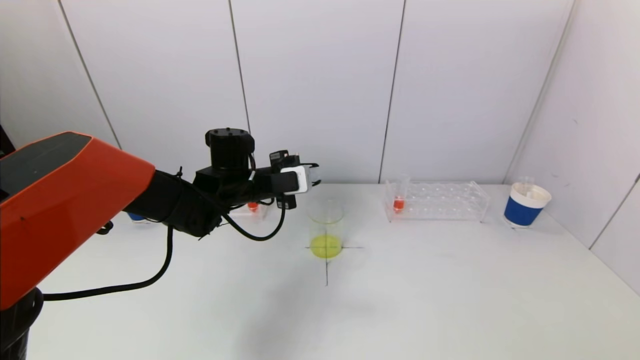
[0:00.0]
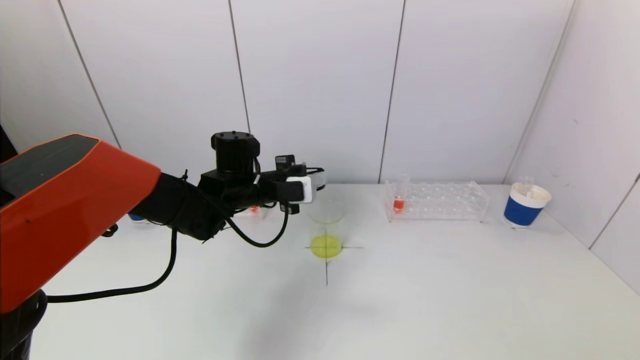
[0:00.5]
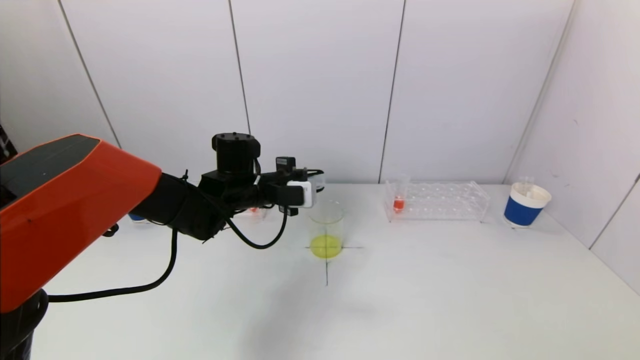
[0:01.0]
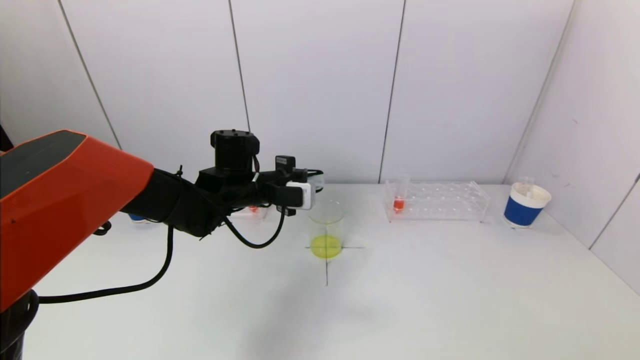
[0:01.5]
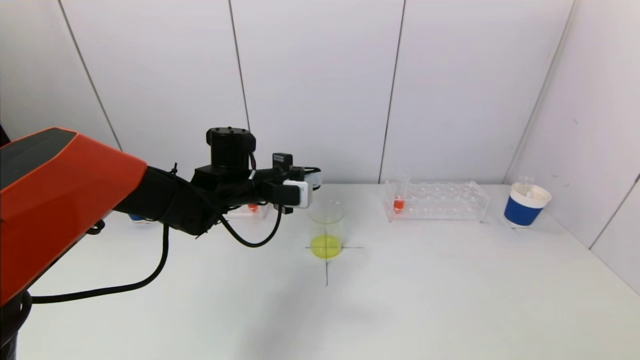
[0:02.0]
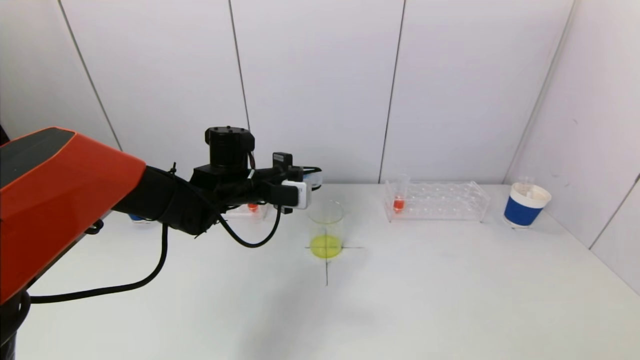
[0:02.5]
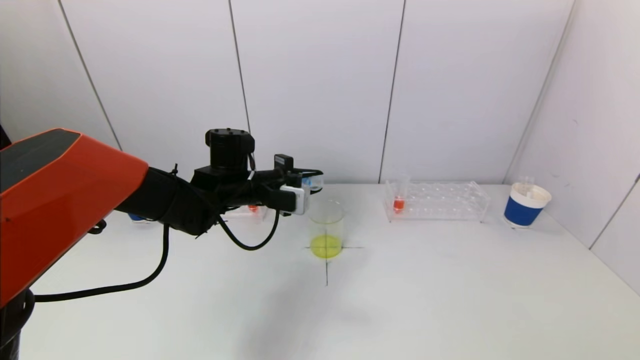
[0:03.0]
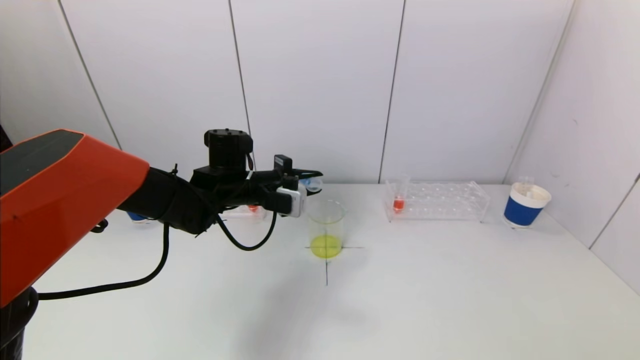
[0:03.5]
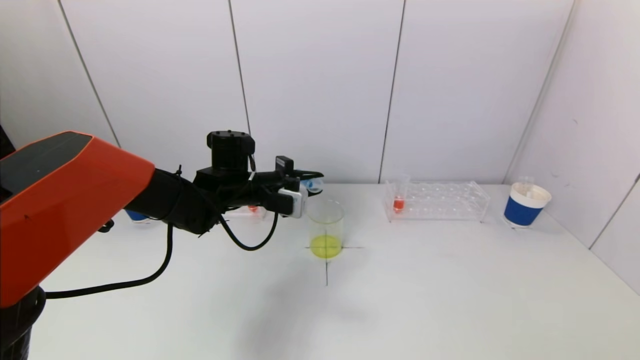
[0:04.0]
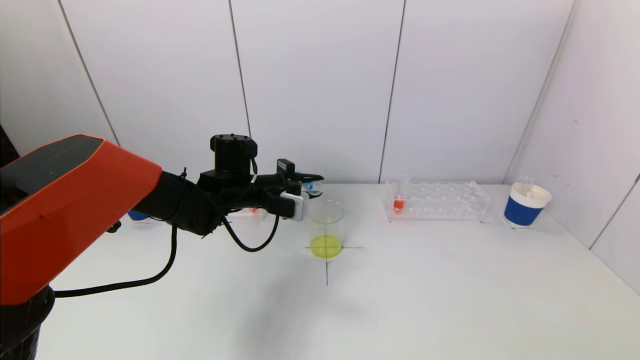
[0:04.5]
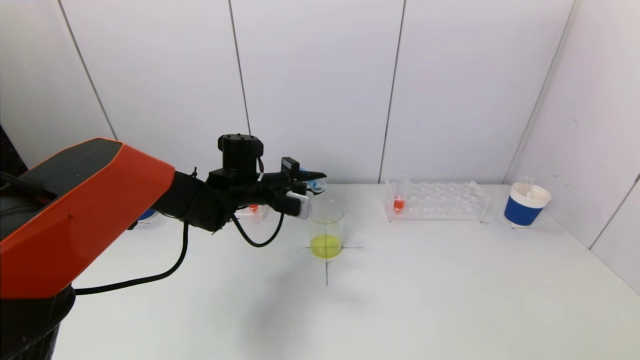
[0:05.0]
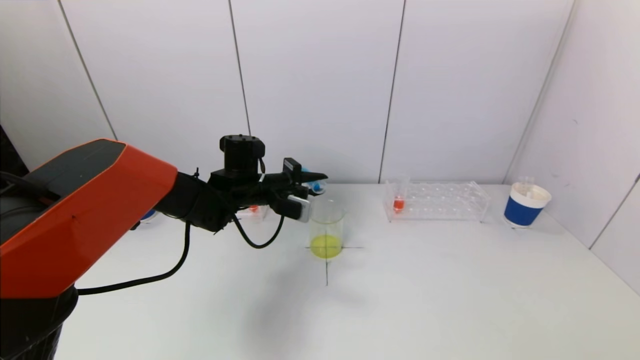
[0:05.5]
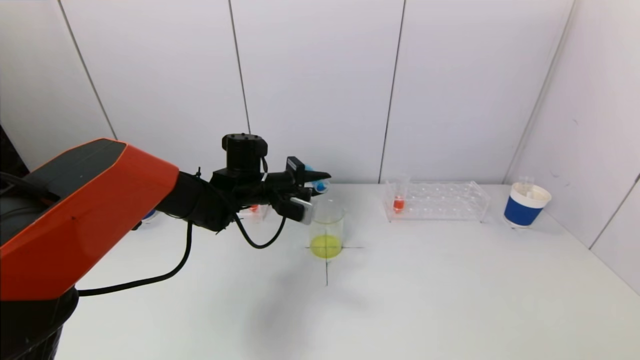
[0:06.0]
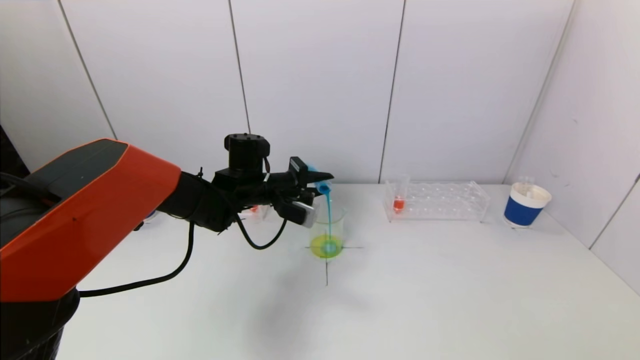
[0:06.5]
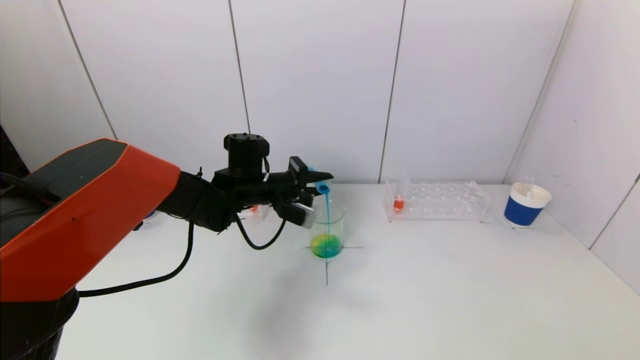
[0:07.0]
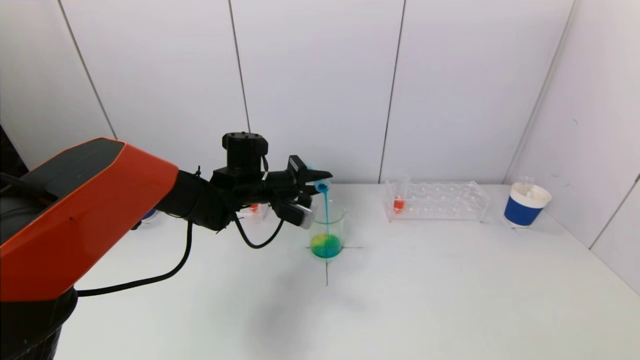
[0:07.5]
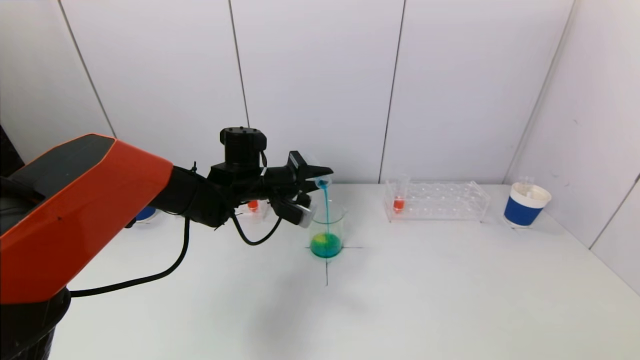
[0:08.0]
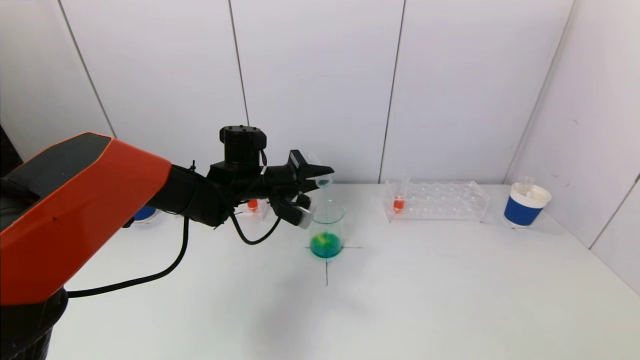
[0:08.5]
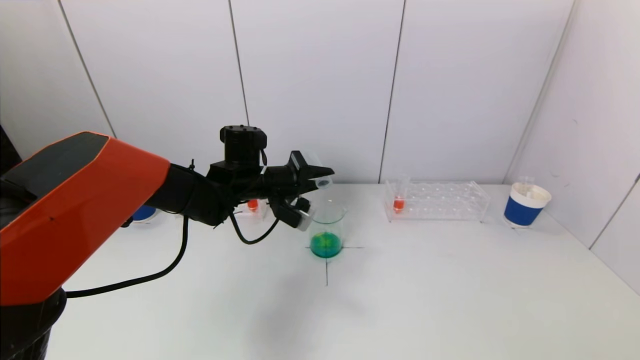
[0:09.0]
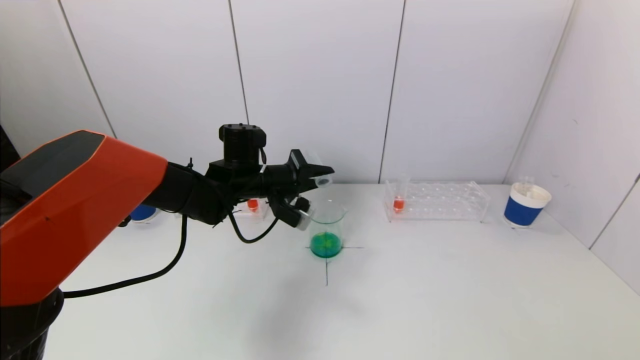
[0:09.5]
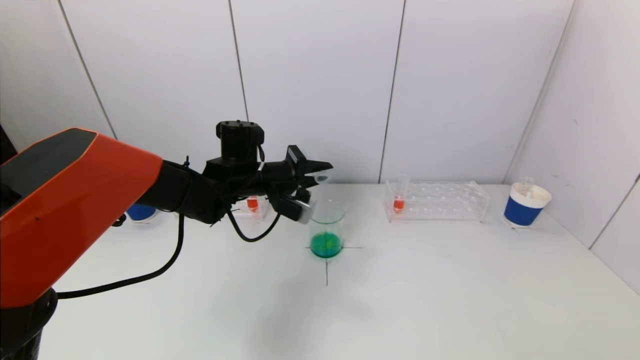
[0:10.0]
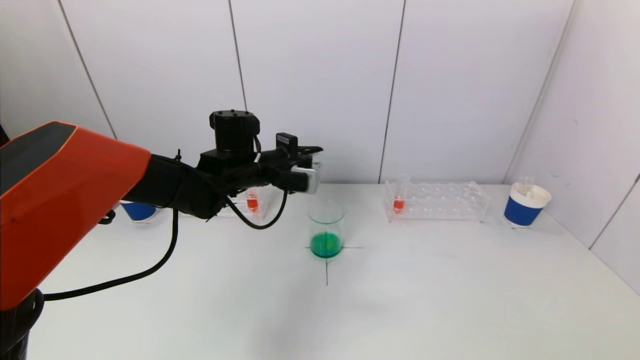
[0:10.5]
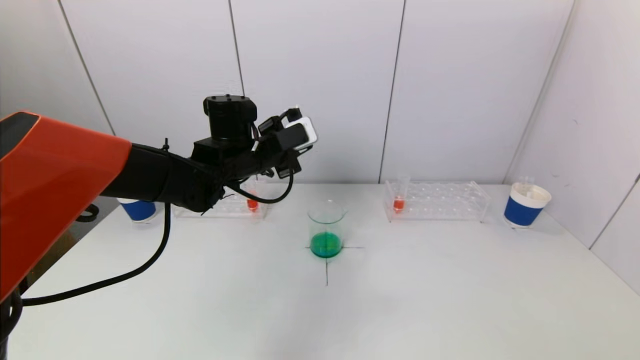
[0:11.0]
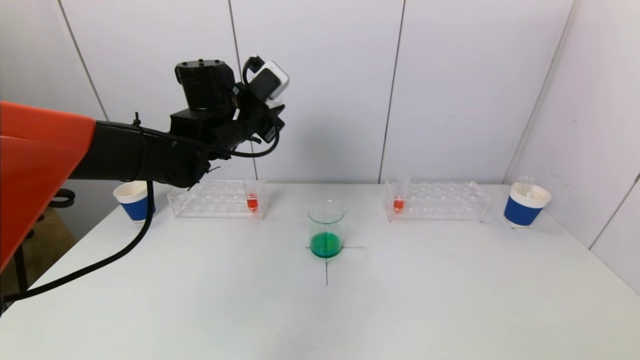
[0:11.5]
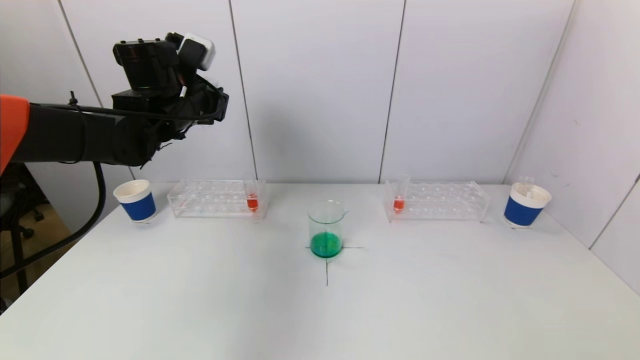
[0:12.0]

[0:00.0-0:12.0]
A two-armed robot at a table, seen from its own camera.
Task of the whole recording: pick up a test tube with pigment on left test tube rack and a test tube with pigment on right test tube rack by grippers and pour them into the beaker.
Step, 0:00.0 to 0:09.5: Pour the blue reagent into the graduated cylinder with the left gripper.
0:00.0 to 0:04.0: The grippers make only small movements.
0:04.0 to 0:06.0: The grippers stay close to where they were, moving slightly.
0:06.0 to 0:10.0: The grippers make only small movements.
0:10.0 to 0:12.0: The left gripper shifts about 15 cm upward and to the left.

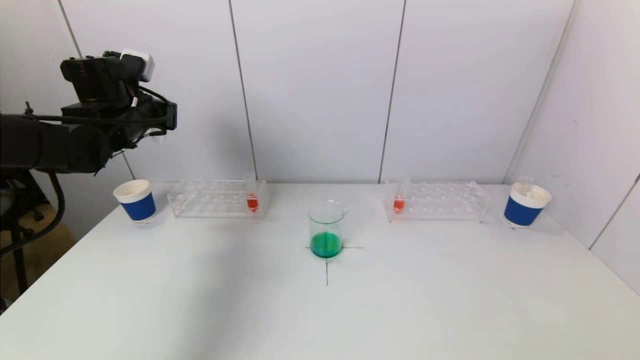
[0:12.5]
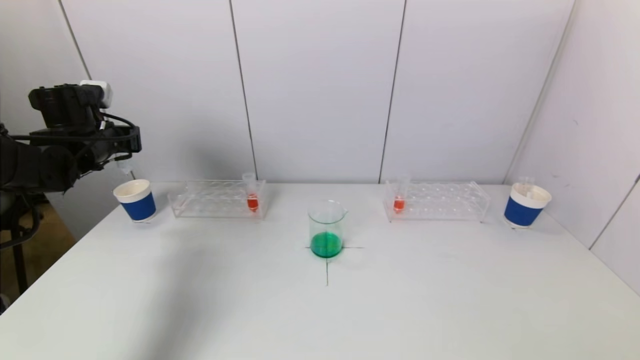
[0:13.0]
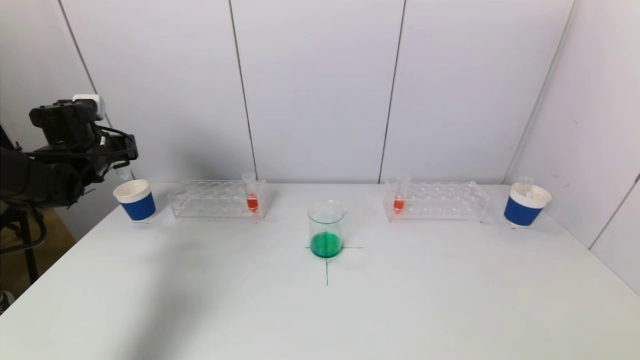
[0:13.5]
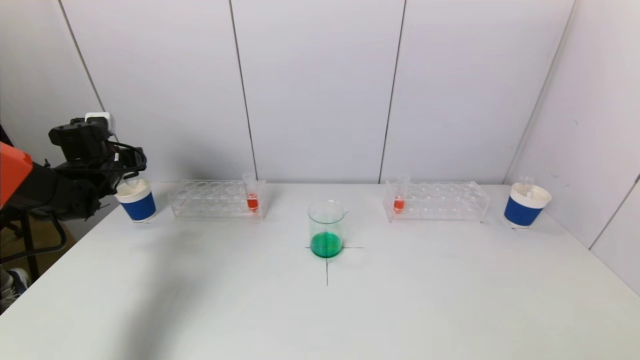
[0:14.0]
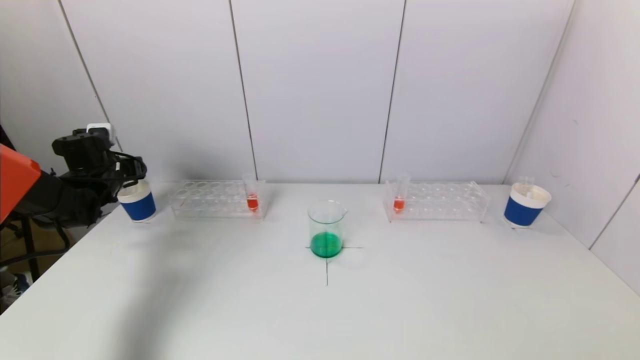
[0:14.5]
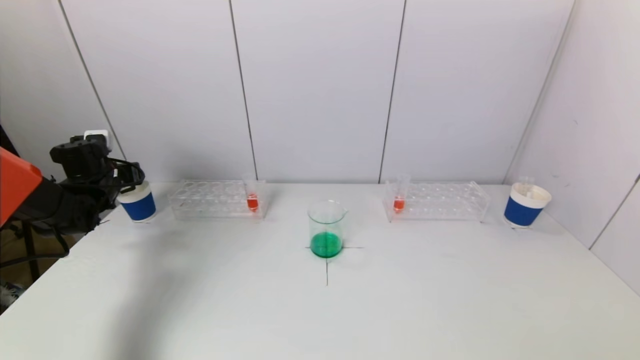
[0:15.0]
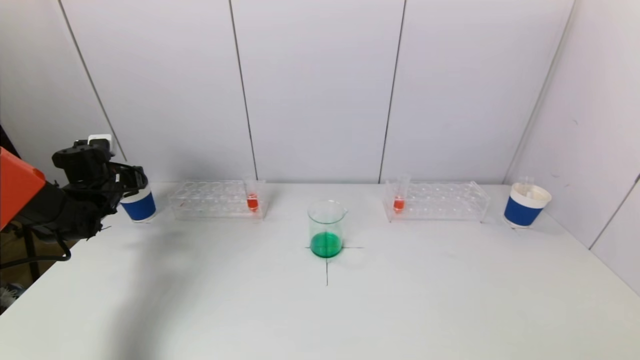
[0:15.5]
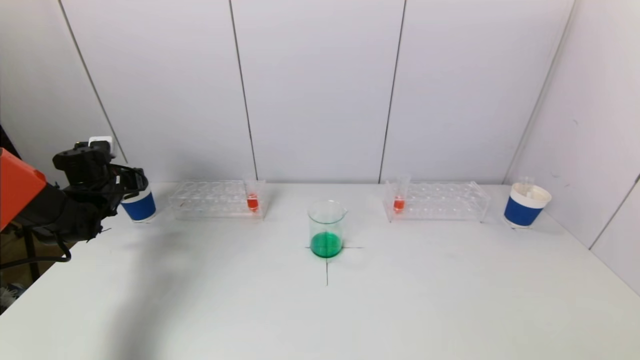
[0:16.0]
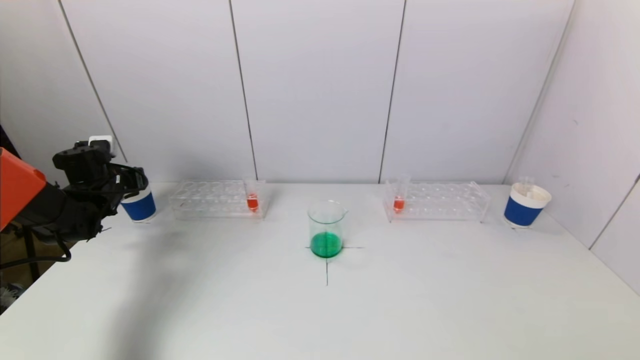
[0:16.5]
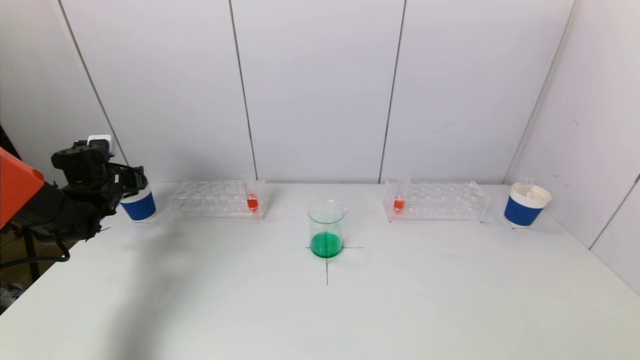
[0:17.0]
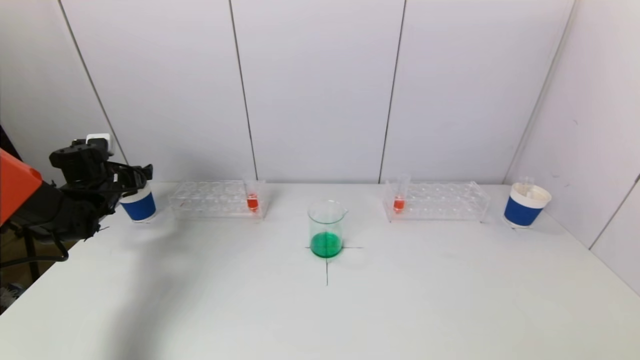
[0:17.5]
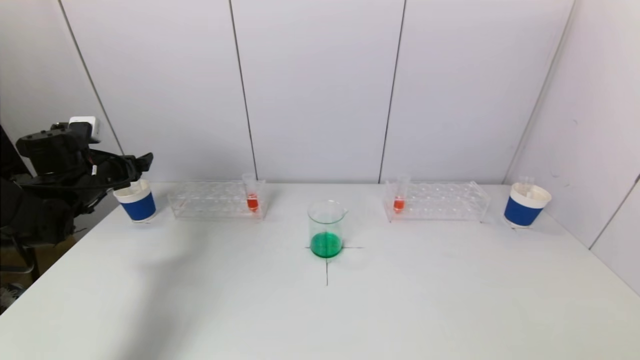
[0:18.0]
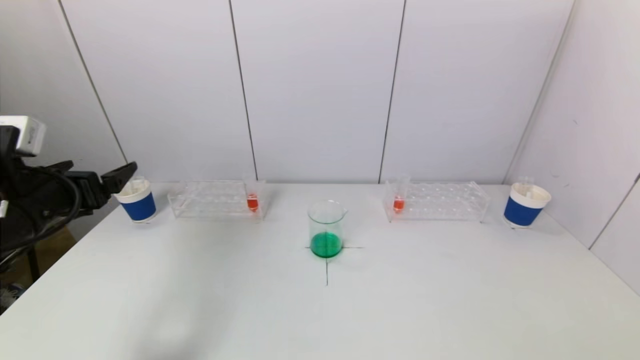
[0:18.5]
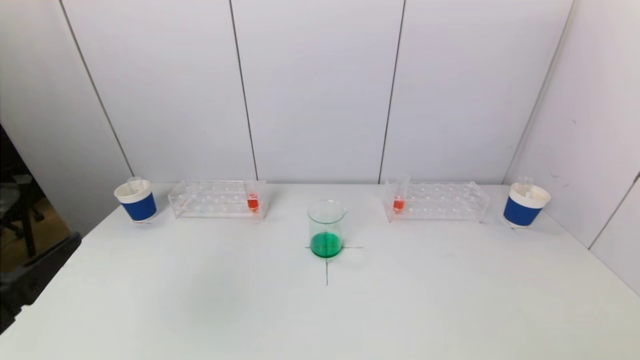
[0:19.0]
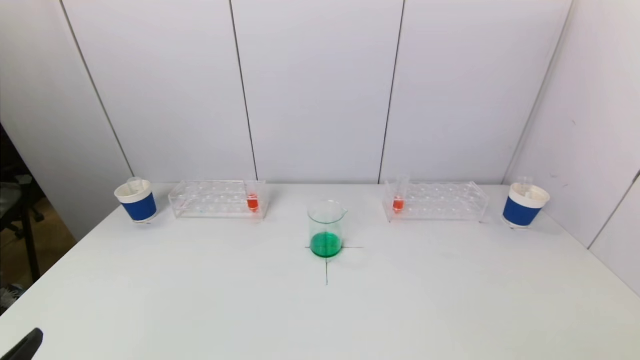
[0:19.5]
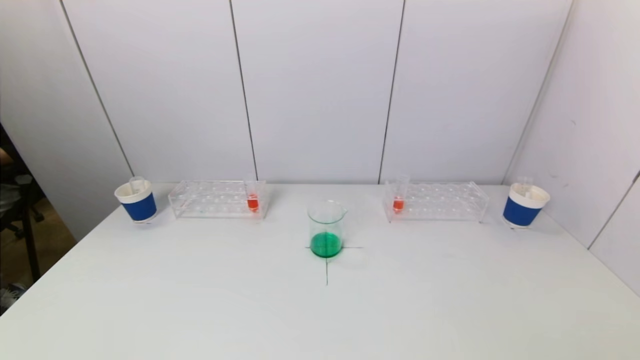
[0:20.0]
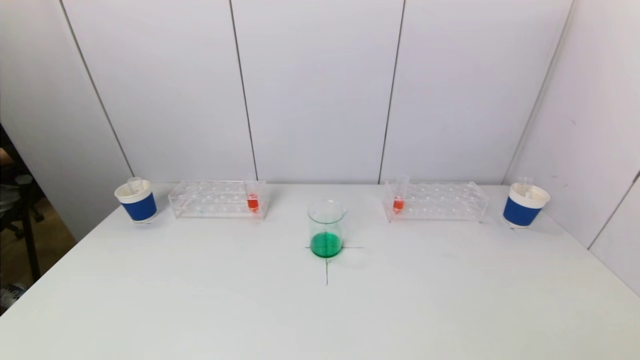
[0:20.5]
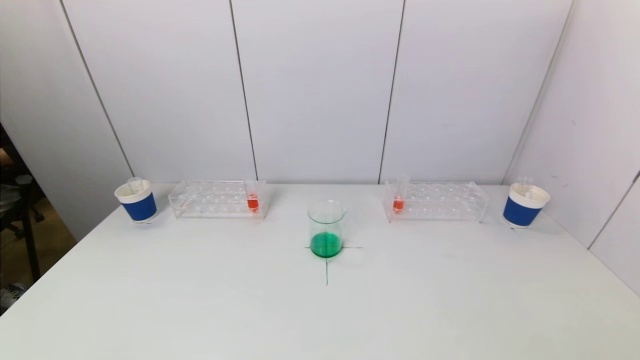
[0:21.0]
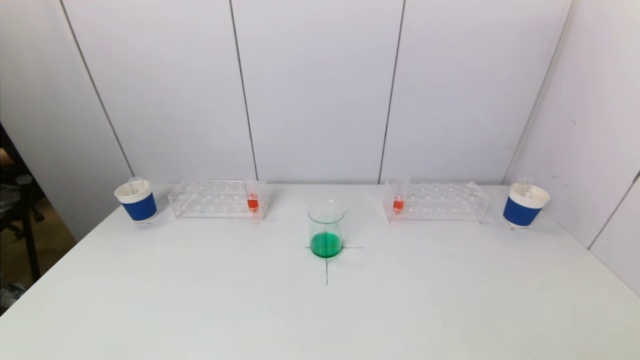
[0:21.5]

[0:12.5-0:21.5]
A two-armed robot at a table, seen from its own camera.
Task of the whole recording: pick up a test tube with pigment on left test tube rack and a test tube with pigment on right test tube rack by grippers and pour them into the beaker.
Step, 0:12.5 to 0:17.0: Place the test tube into the paper cup with the left gripper.
0:12.5 to 0:14.5: The left gripper moves downward and to the left, approximately 15 cm.
0:14.5 to 0:17.0: The left gripper opens.
0:17.0 to 0:19.5: The left gripper travels backward by approximately 40 cm, and opens.
